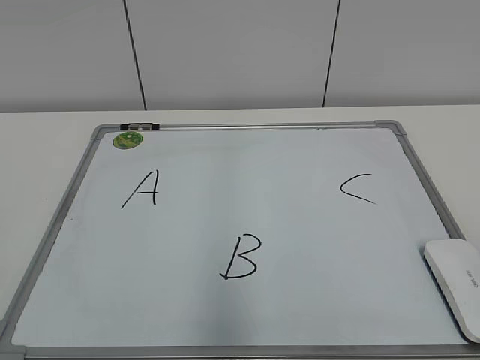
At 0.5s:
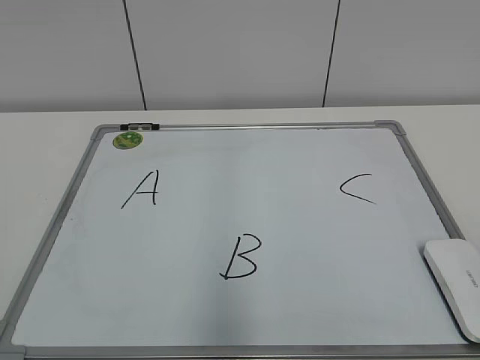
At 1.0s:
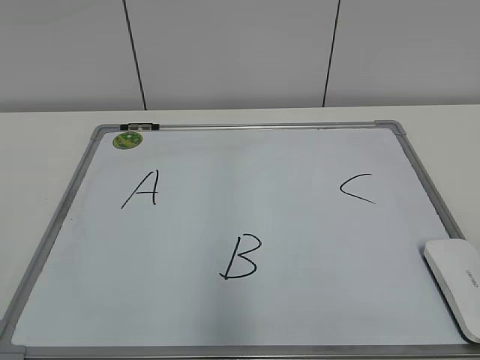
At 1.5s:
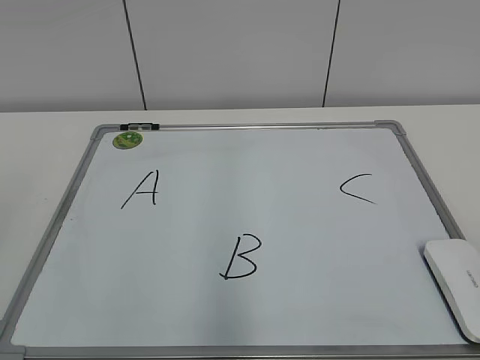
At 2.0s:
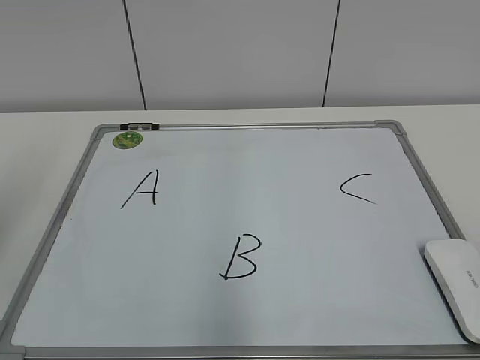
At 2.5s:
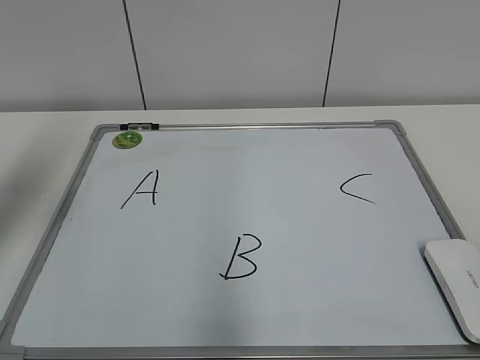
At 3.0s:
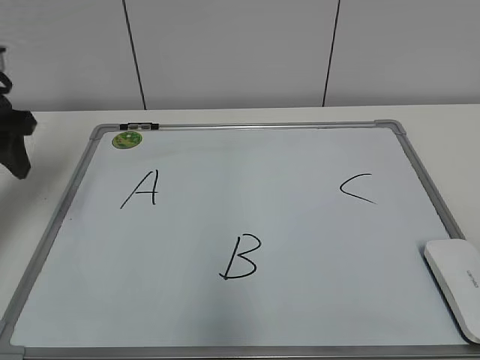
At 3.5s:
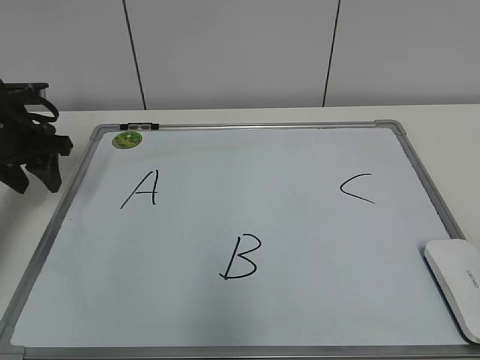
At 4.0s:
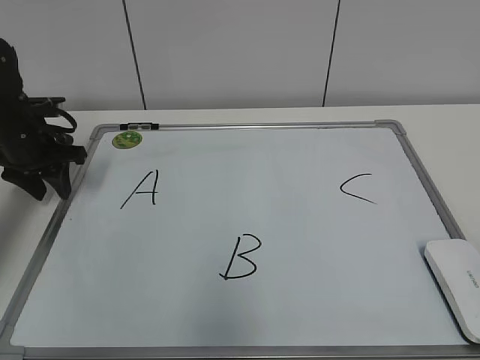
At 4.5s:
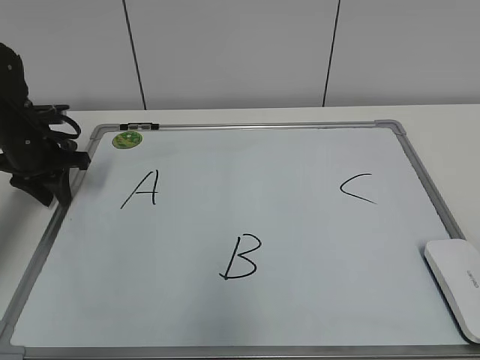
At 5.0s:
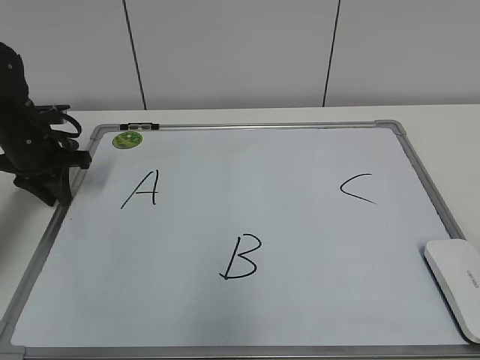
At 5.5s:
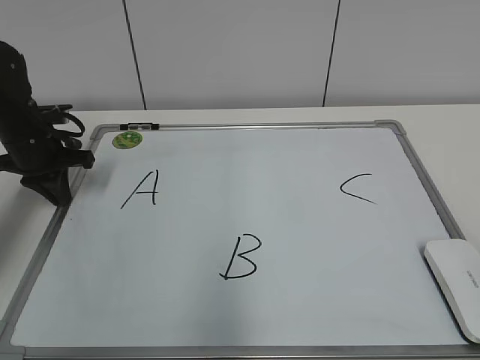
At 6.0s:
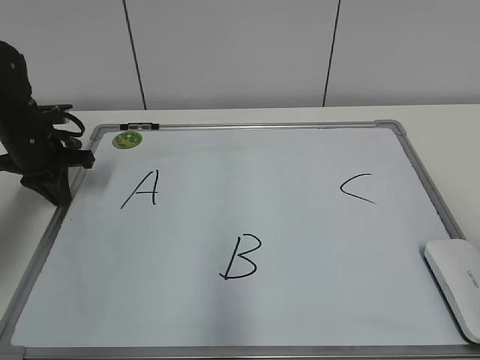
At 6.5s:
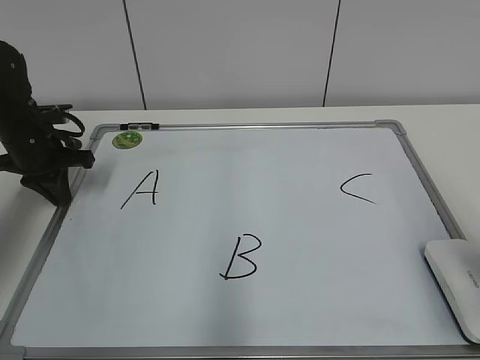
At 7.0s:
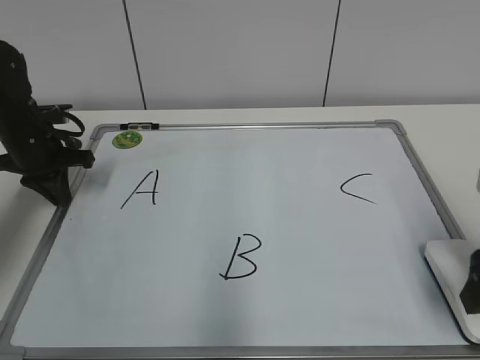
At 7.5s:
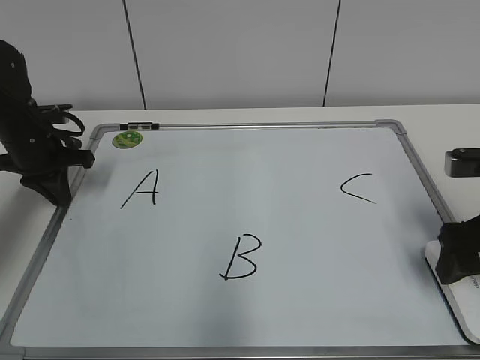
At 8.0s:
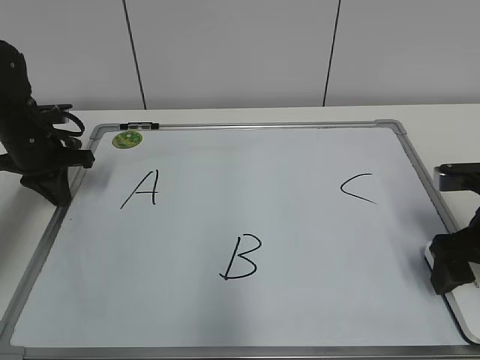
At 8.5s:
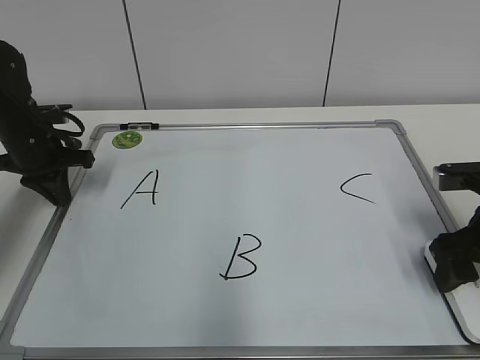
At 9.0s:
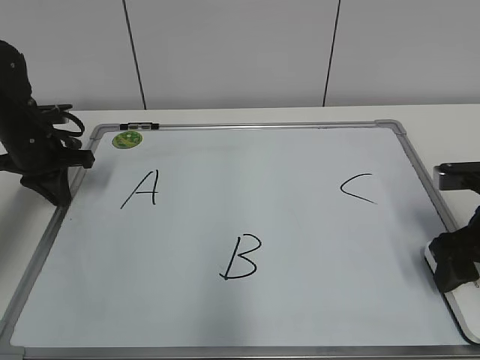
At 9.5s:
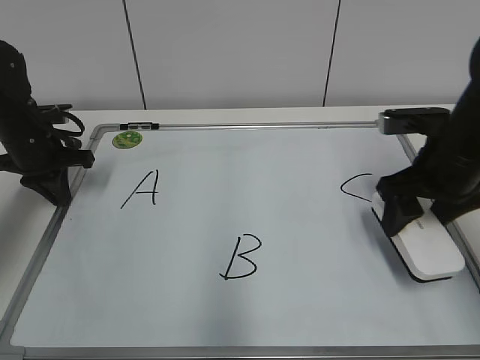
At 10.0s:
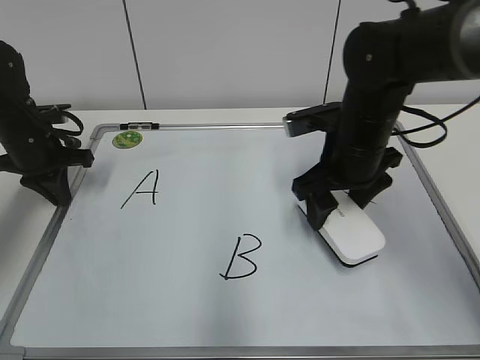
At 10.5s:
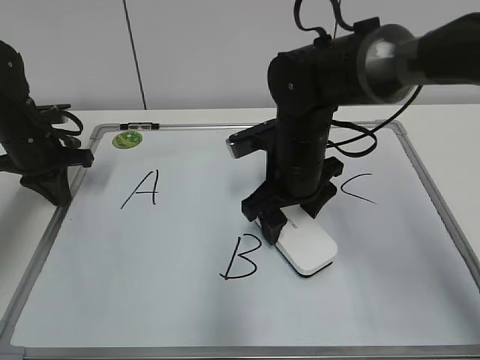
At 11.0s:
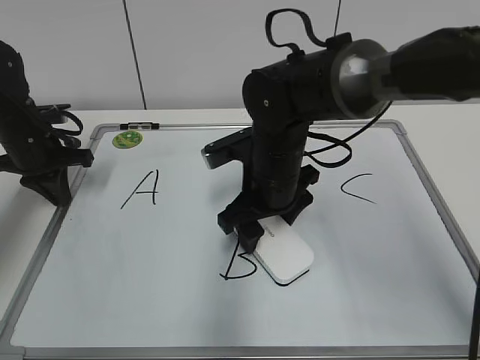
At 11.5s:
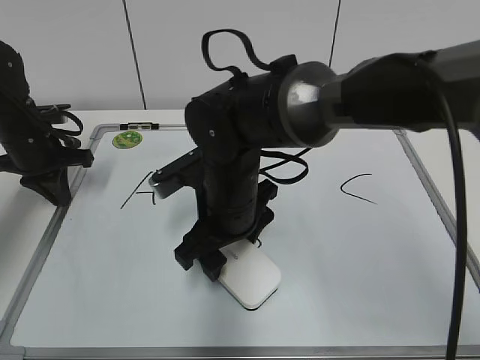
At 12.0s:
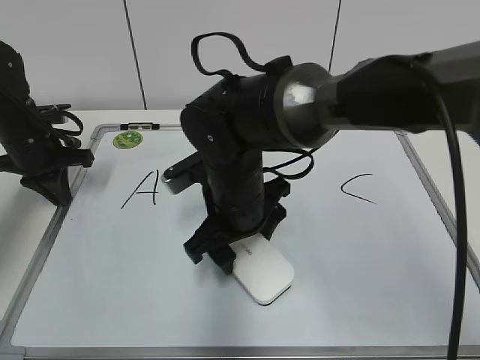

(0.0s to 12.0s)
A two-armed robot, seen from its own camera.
Task of the whole recording: pick up the eraser on the blackboard and erase the letter "B".
Step, 0.0s - 5.0s: Hold the drawing board steady with your left hand.
Step, 5.5s - 8.0s: Grab the eraser with your right hand.
2.0s - 4.0s: The left gripper is displaced forward and downward by roughly 35 cm.
4.0s - 6.0s: The left gripper closes its fingers.
6.0s - 8.0s: The right gripper goes roughly 25 cm forward and downward, and opens up.
8.0s - 10.0s: The right gripper moves to the left and forward, some 15 cm, and closes up.
10.0s - 12.0s: The right gripper heads to the left, covering about 15 cm.

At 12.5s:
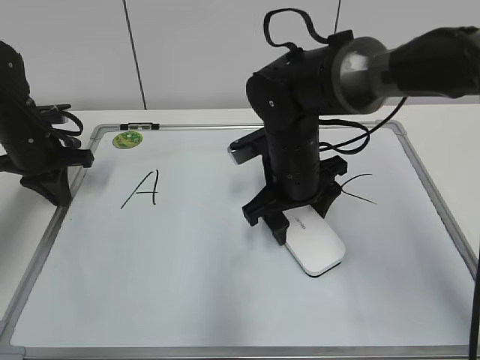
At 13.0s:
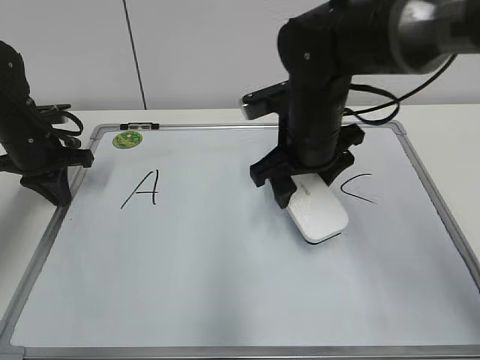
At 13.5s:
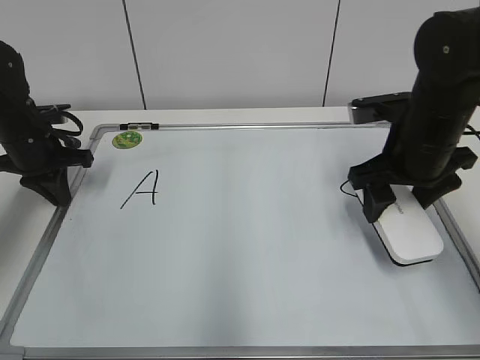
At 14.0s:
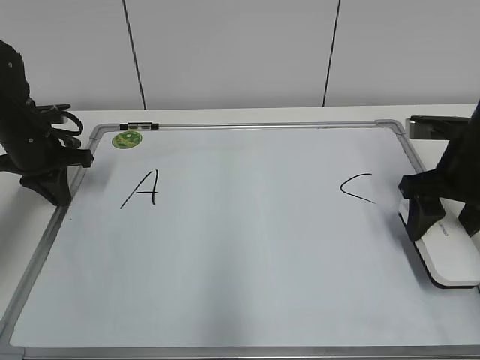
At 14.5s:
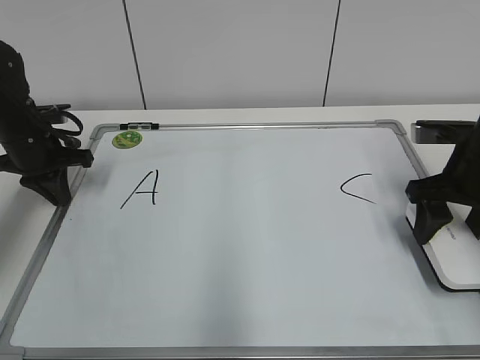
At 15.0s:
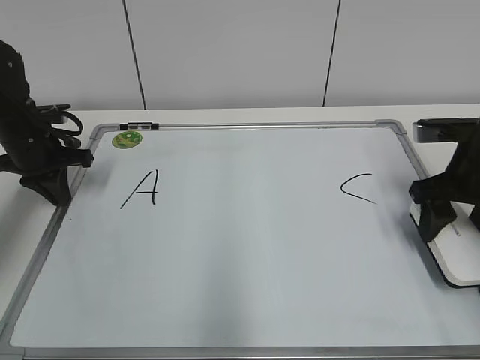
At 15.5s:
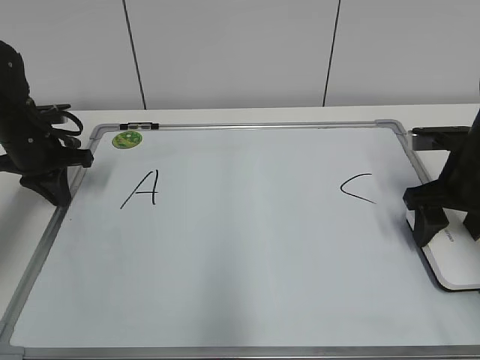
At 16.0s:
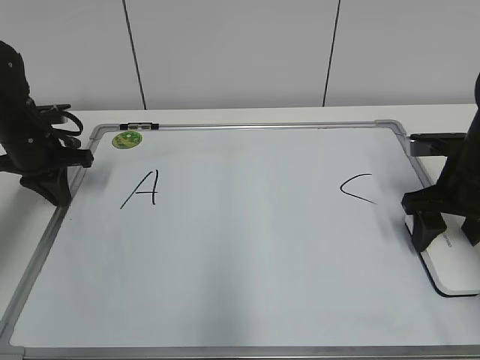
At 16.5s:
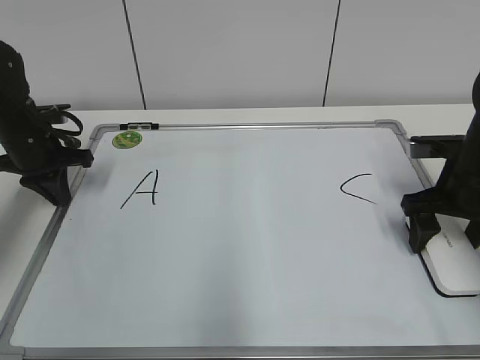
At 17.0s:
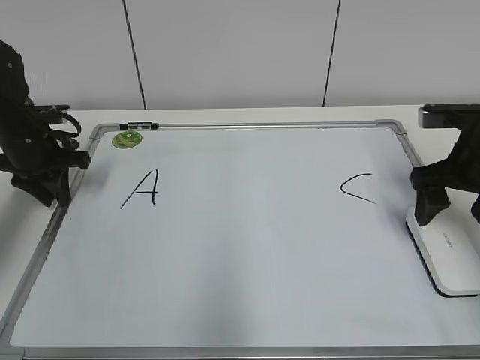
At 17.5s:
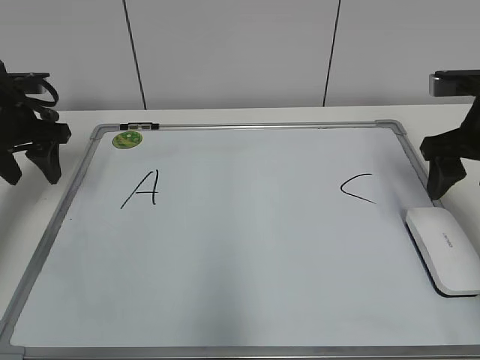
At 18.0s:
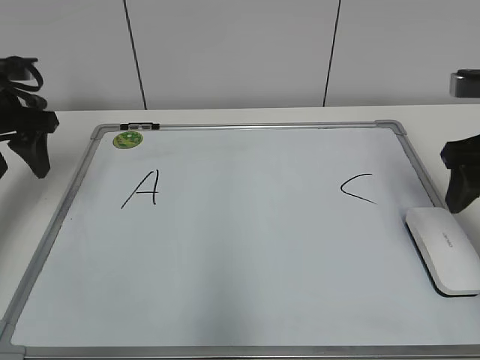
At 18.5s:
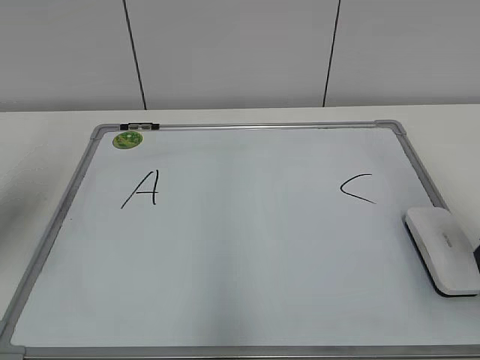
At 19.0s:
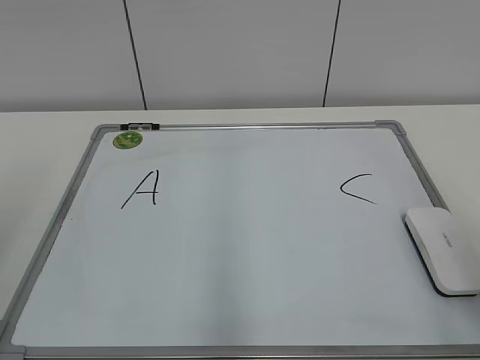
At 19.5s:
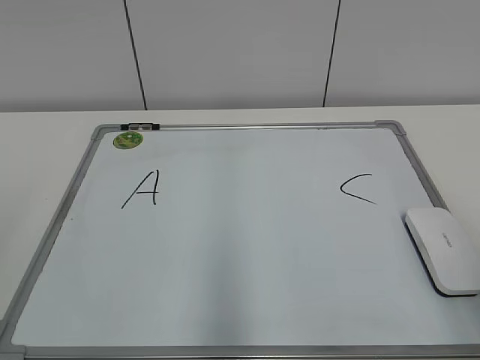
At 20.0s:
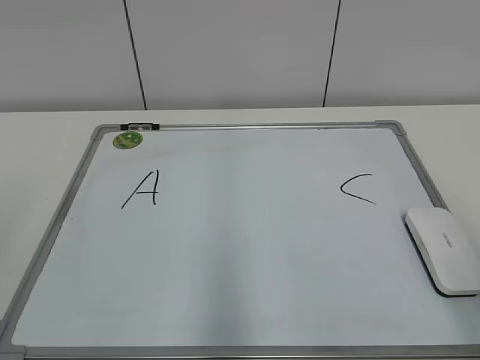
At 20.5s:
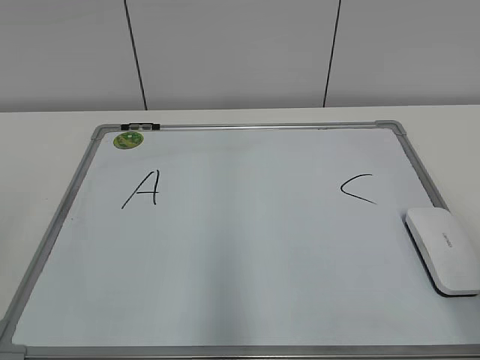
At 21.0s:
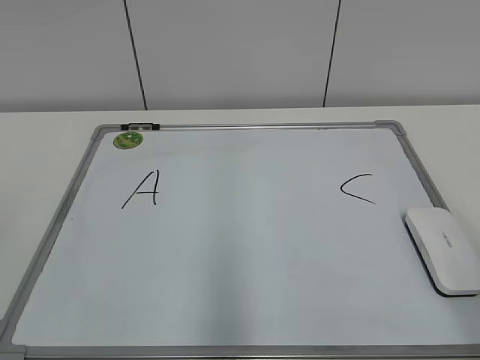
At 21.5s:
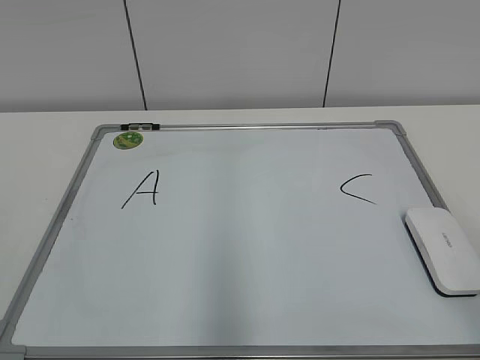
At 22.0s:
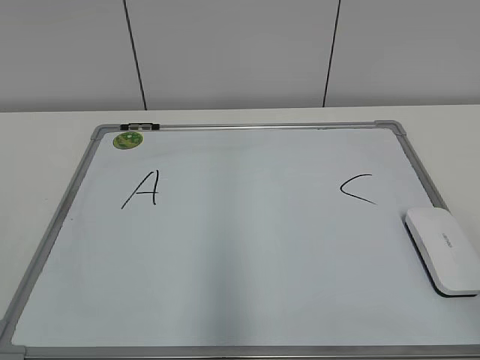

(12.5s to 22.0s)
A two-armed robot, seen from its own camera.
Task of the whole recording: pick up the eraser on the blackboard and erase the letter "B".
Step, 13.0s - 16.0s: Put down the eraser with your right hand.
12.5s - 14.5s: The right gripper is displaced to the right by about 20 cm.
14.5s - 16.5s: The right gripper opens.
16.5s - 18.0s: Both grippers move upward, roughly 10 cm. The left gripper opens. Meanwhile the right gripper closes.
18.0s - 20.0s: Both grippers move backward, roughly 25 cm.

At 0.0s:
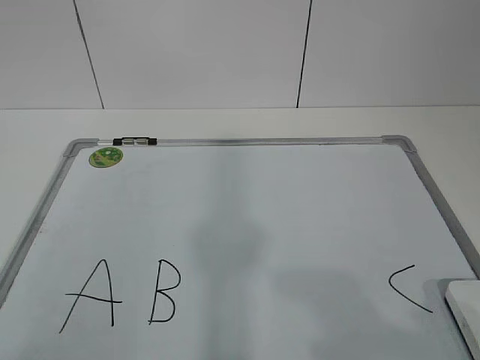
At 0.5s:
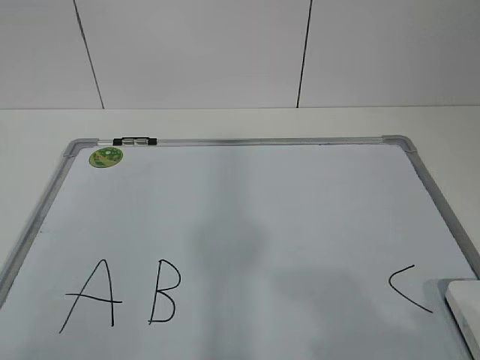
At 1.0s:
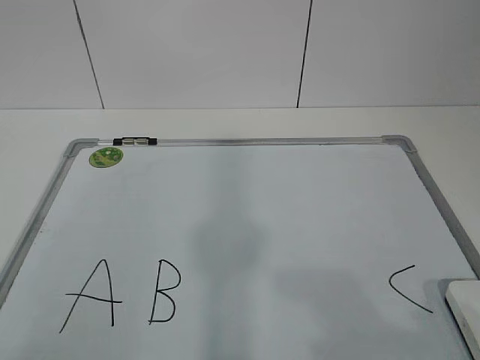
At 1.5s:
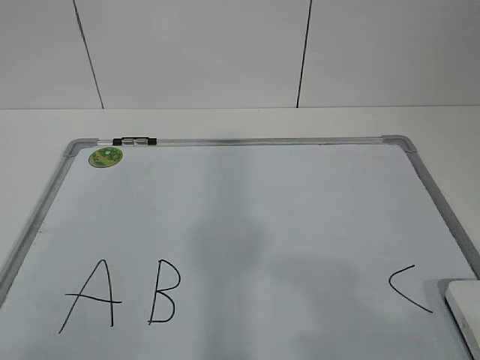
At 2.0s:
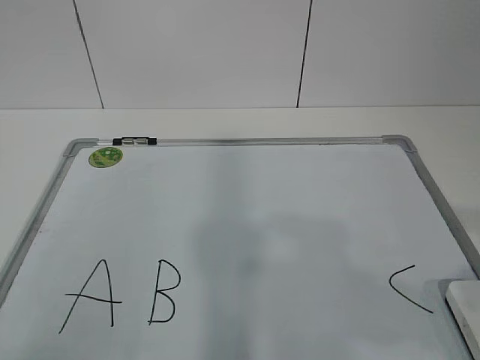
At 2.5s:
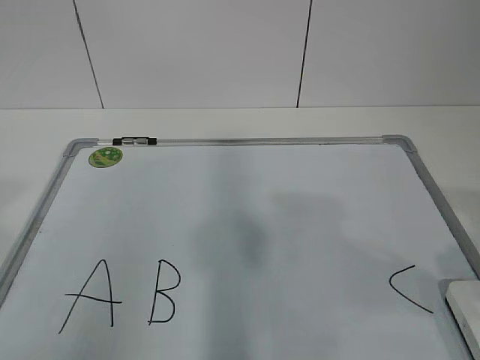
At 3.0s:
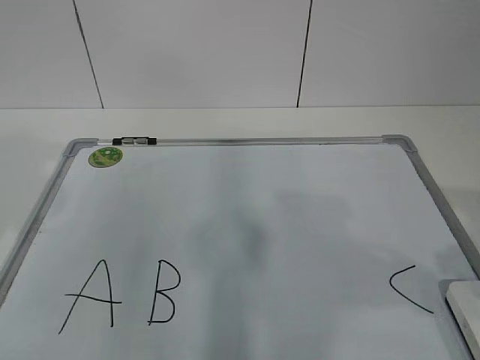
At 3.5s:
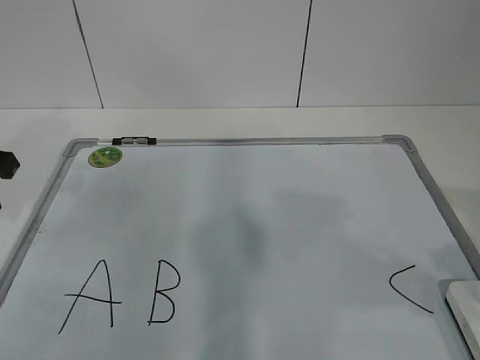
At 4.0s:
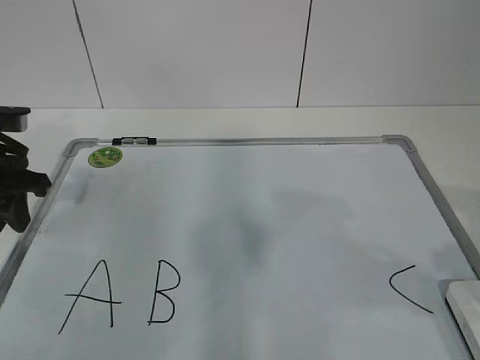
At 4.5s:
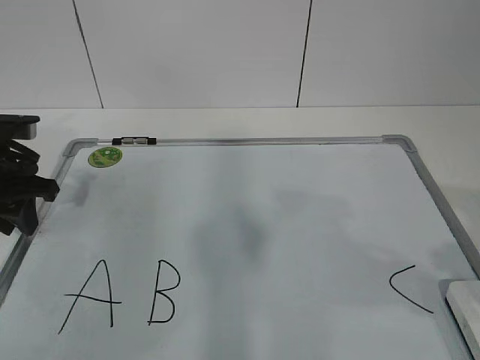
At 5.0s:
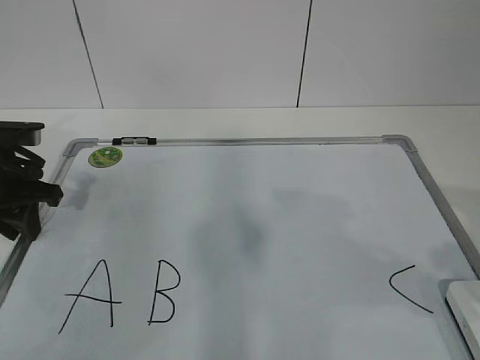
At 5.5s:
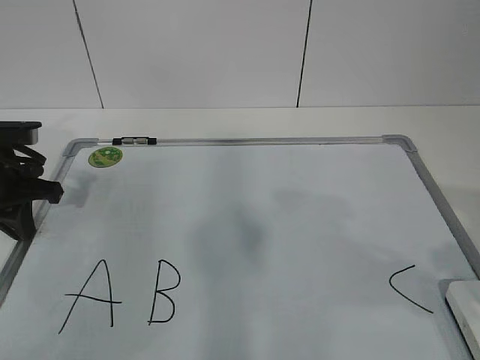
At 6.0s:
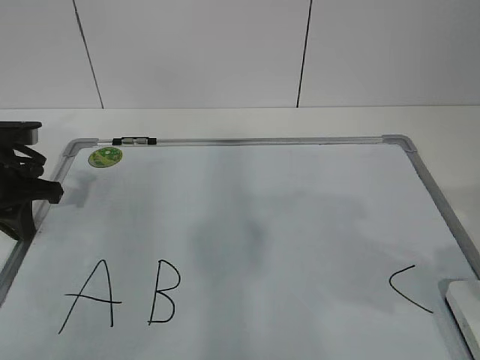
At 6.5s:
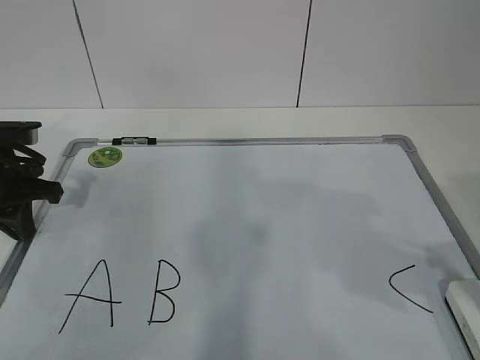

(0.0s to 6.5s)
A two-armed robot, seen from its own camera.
Task of the whole recording: pick up the eraser on the blackboard and erase the letter "B".
Step, 0.0s - 4.0s: Hold the drawing board steady with your left hand.
2.0s - 4.5s: The left gripper shifts approximately 30 cm forward.
4.5s - 6.5s: The left gripper closes up.
